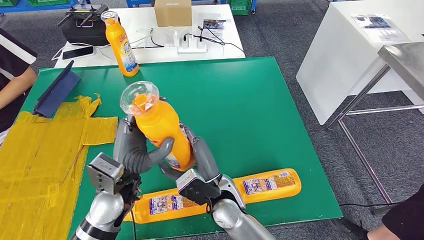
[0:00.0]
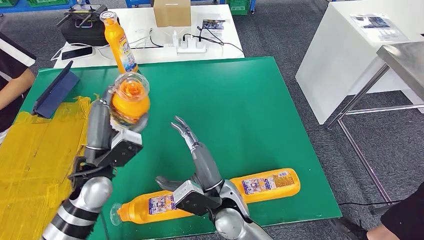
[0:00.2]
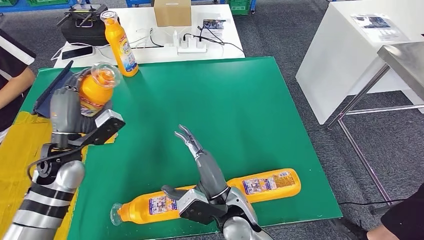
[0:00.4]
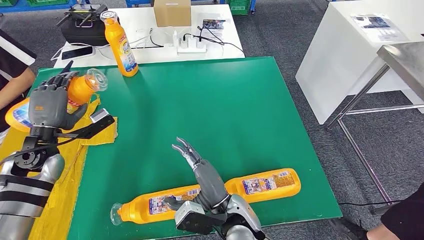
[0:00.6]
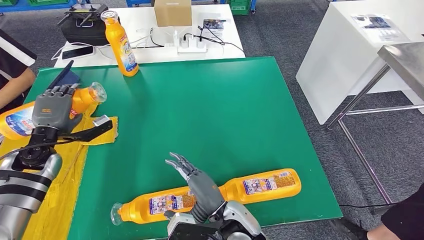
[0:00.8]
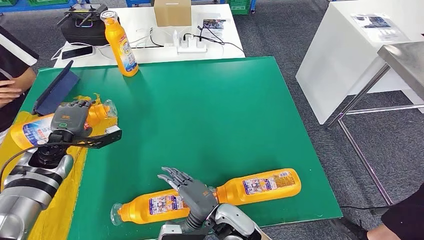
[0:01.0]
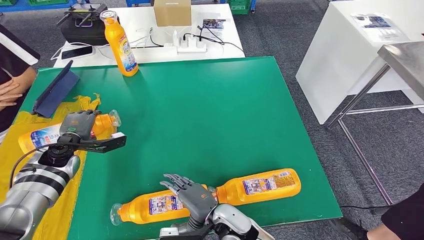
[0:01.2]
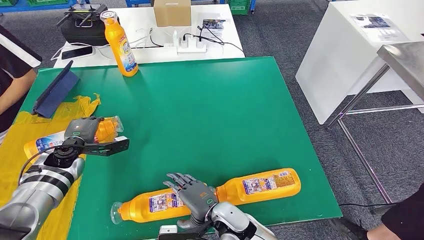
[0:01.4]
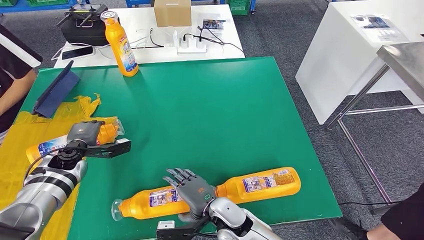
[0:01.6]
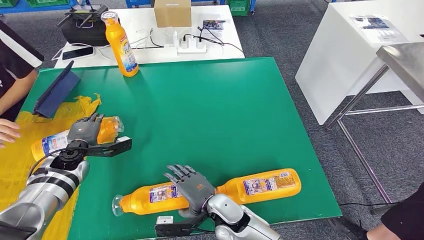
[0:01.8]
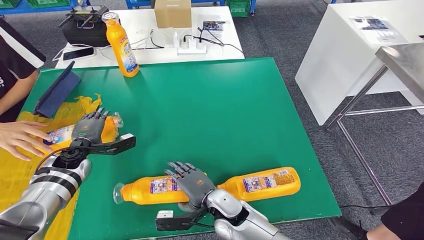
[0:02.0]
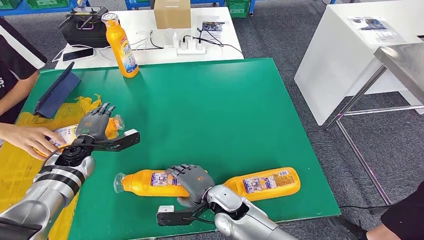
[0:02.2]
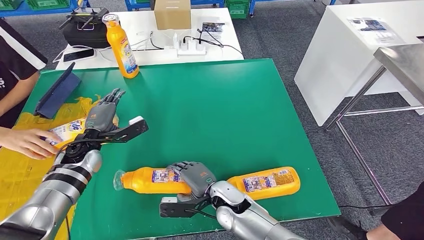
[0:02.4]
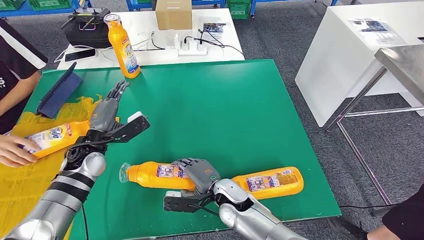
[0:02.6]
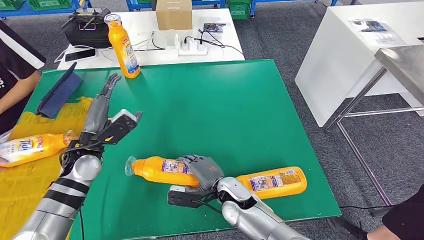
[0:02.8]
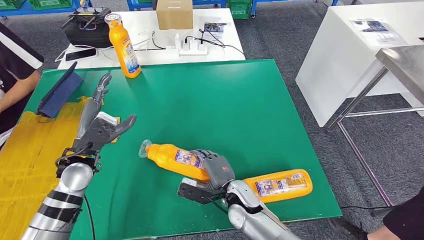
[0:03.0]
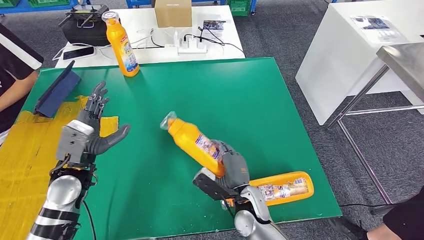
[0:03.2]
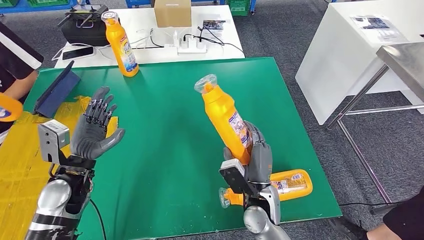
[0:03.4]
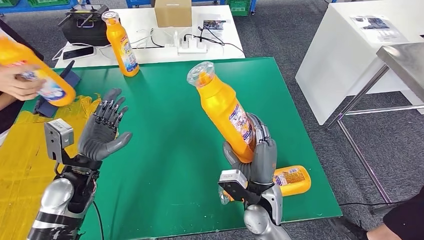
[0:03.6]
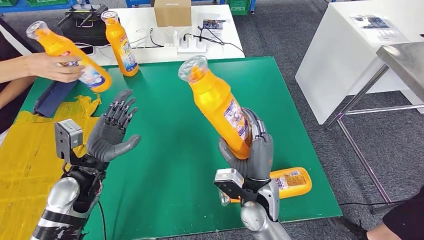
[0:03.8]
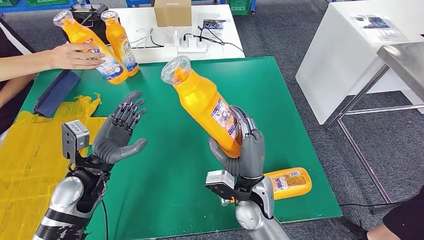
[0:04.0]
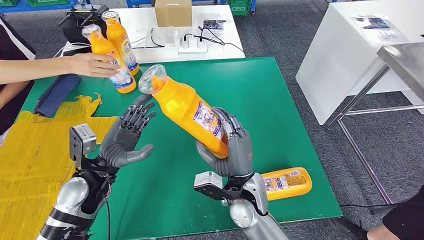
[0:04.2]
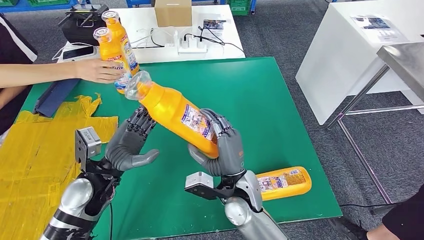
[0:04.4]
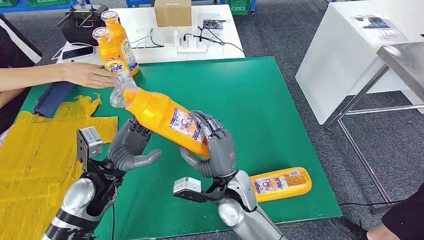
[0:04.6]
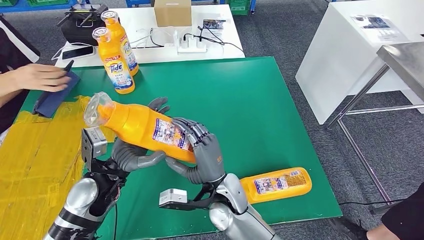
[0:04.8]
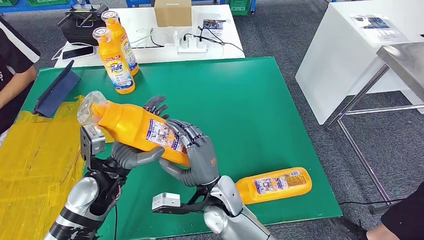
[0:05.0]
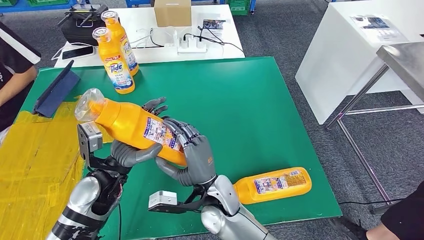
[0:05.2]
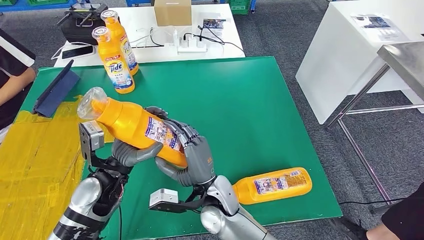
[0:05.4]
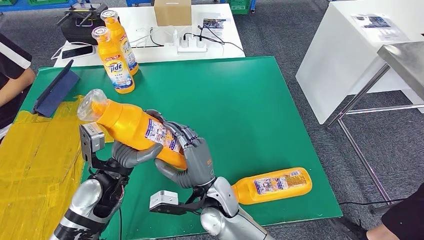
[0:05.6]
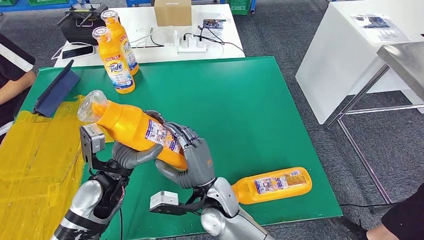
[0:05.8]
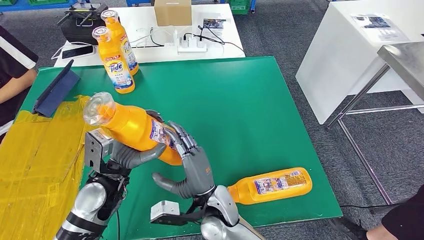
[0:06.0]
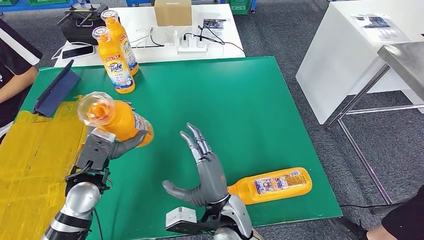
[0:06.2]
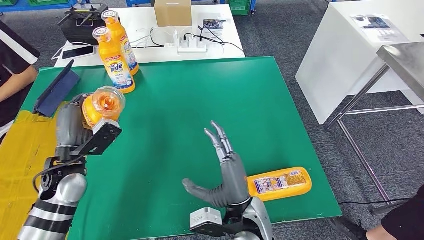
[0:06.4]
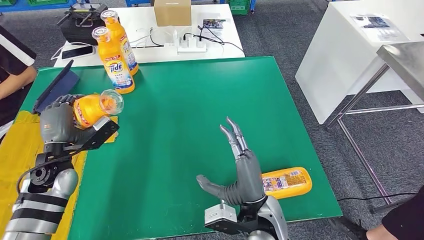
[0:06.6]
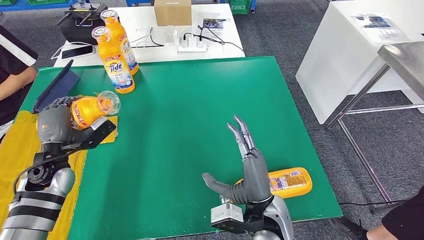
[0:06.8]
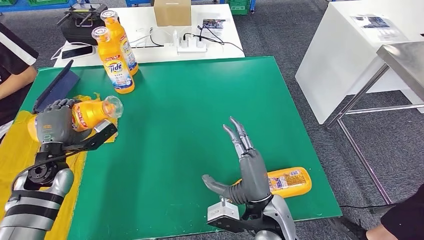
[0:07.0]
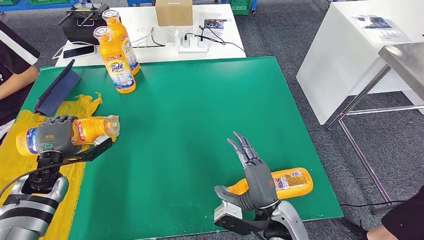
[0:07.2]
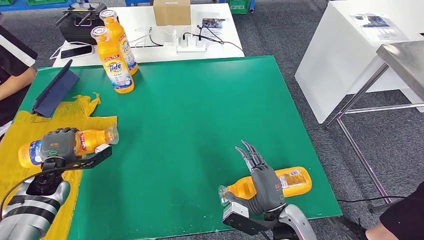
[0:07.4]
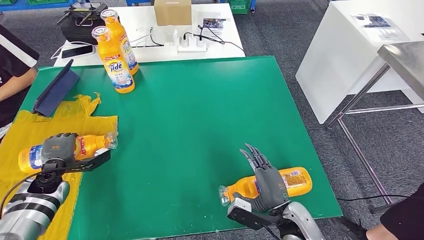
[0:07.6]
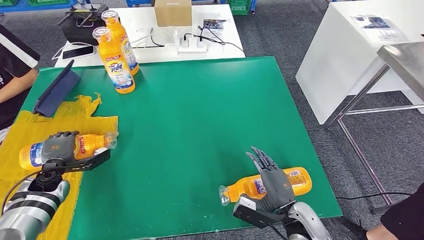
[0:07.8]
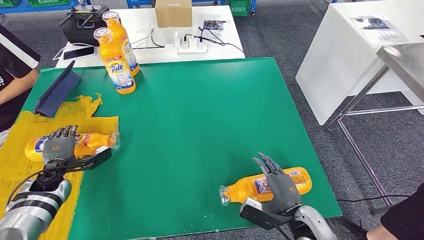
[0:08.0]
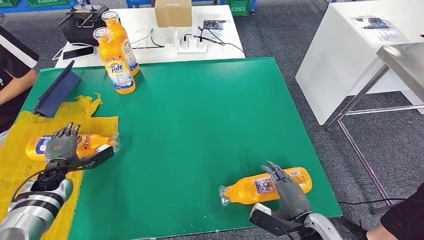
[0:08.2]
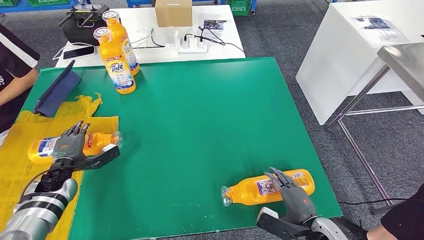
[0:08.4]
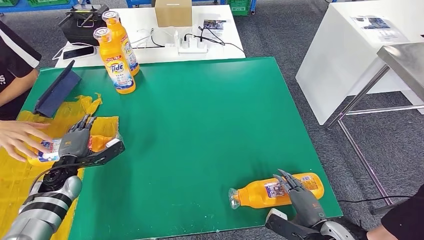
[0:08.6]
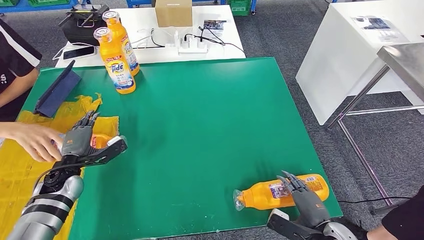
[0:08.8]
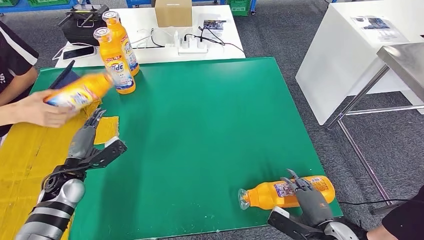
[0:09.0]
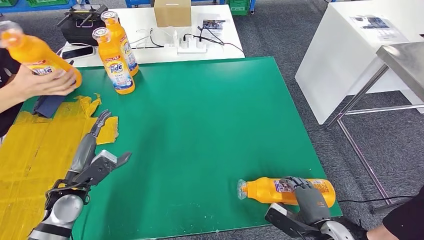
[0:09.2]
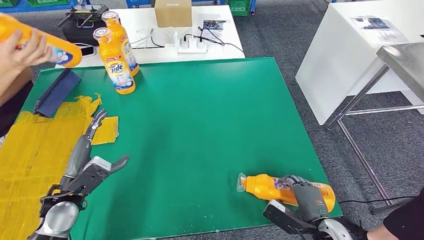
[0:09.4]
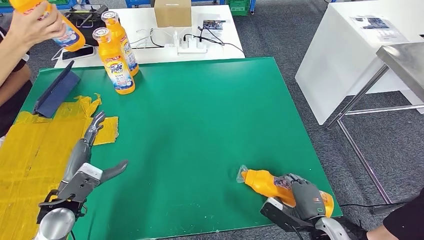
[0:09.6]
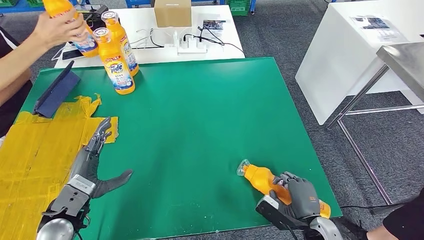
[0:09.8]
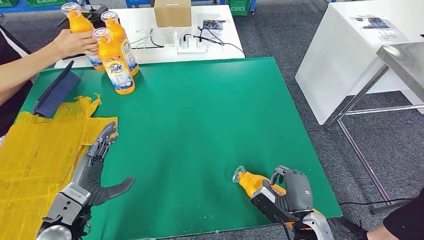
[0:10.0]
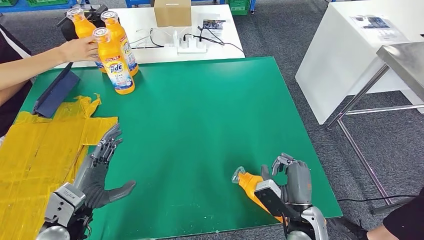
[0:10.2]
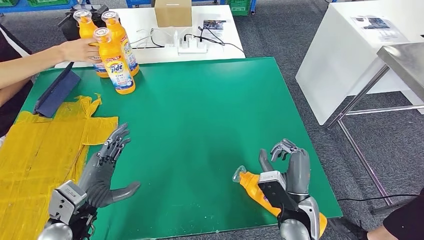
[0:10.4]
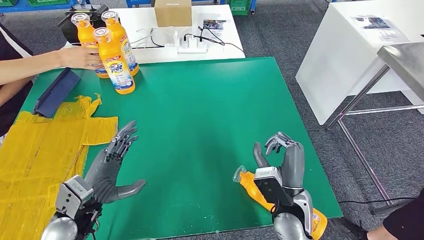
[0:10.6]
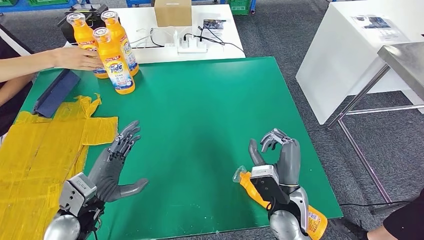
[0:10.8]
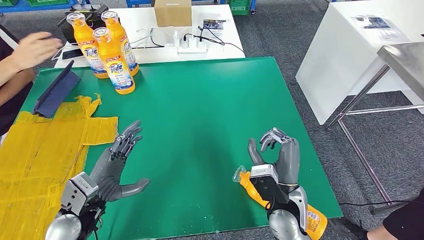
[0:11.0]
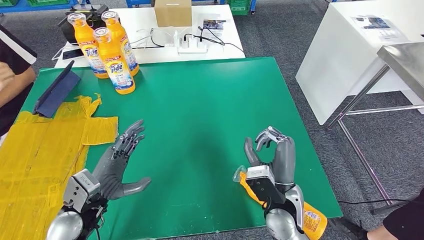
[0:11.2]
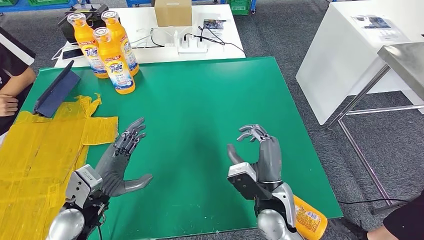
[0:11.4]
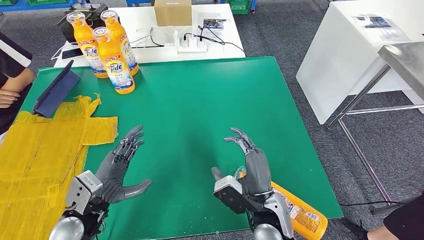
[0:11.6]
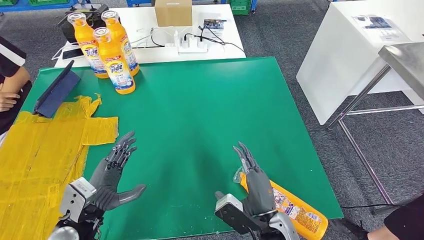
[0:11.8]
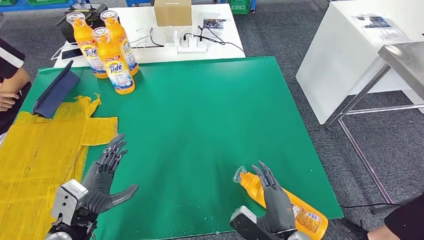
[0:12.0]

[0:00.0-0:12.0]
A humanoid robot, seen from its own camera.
Step, 0:00.0 to 0:01.6: Flip the fast-moving consumer goods bottle to the front side.
Step, 0:01.8 to 0:04.8: Pick up the fast-moving consumer goods bottle from the table.
Step, 0:05.2 to 0:08.6: Flip the fast-moving consumer goods bottle to the front side.
0:00.0 to 0:01.6: The right hand is displaced downward by approximately 5 cm. Meanwhile the left hand heads to the left, forward and downward, covering about 25 cm.
0:10.4 to 0:12.0: The right hand shifts about 10 cm backward.

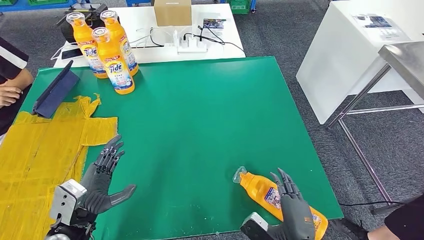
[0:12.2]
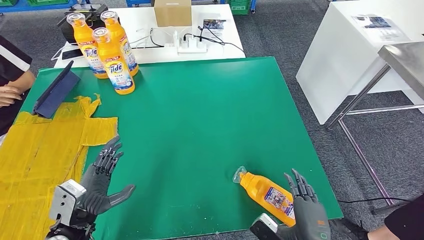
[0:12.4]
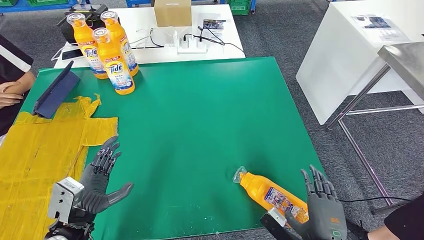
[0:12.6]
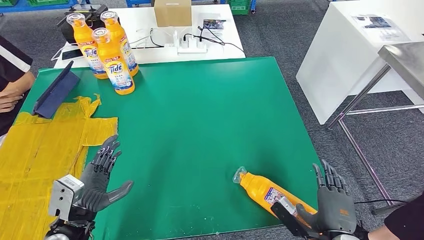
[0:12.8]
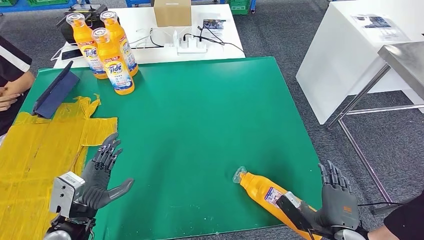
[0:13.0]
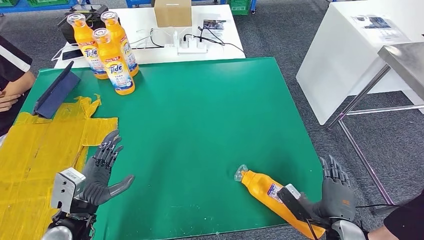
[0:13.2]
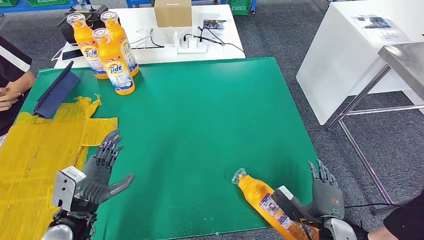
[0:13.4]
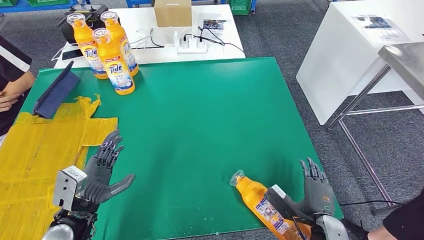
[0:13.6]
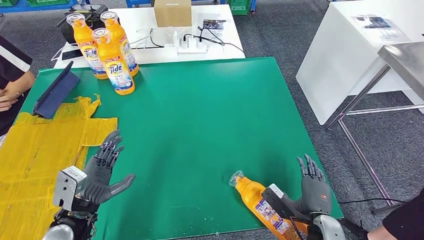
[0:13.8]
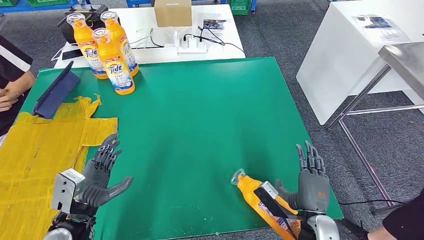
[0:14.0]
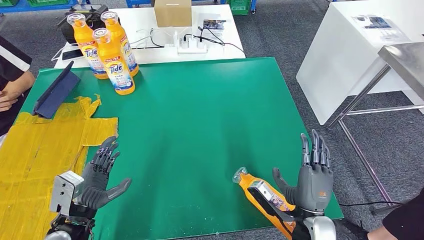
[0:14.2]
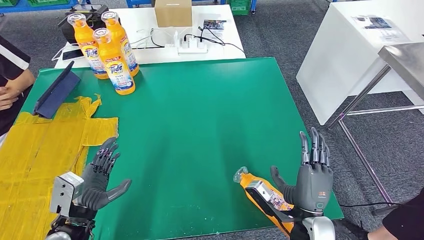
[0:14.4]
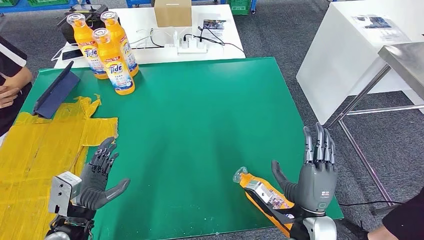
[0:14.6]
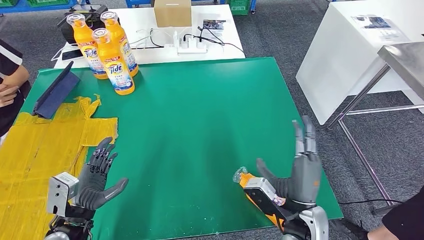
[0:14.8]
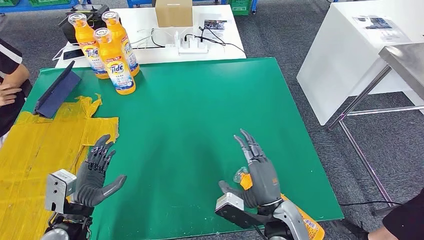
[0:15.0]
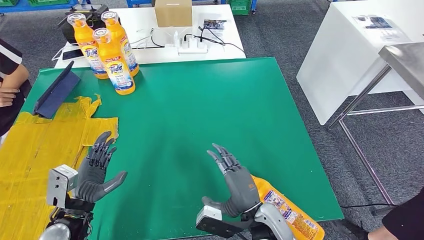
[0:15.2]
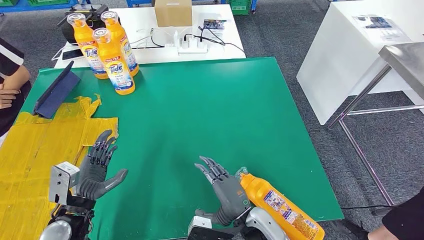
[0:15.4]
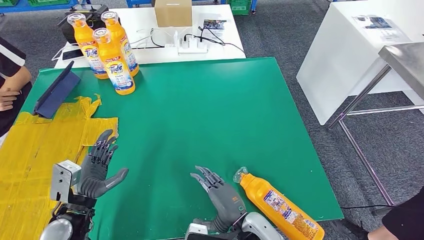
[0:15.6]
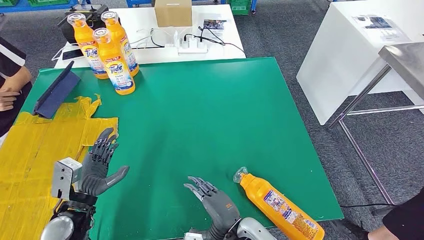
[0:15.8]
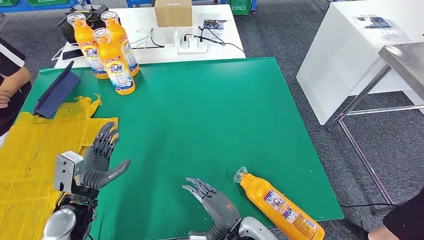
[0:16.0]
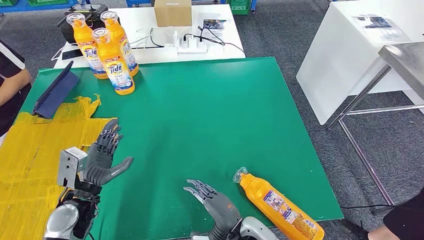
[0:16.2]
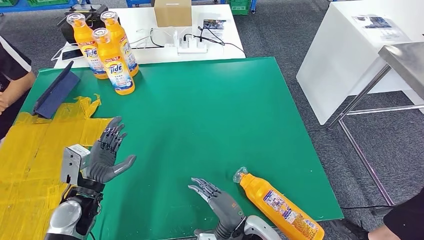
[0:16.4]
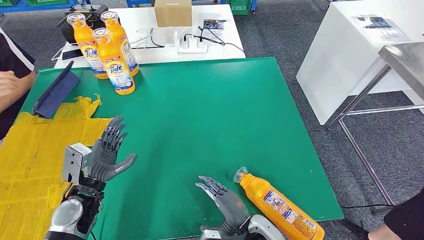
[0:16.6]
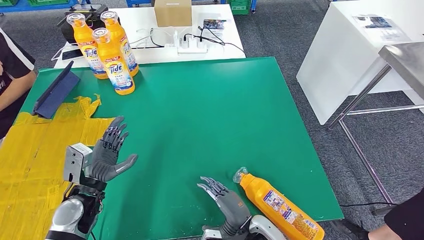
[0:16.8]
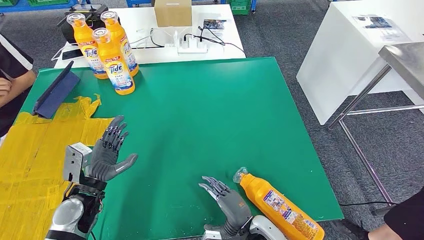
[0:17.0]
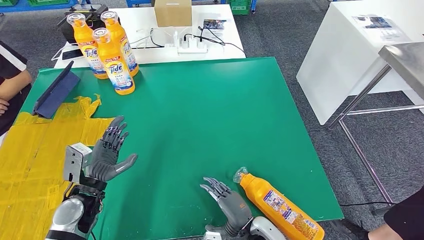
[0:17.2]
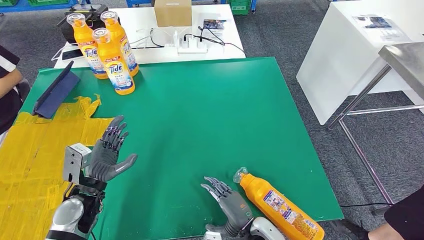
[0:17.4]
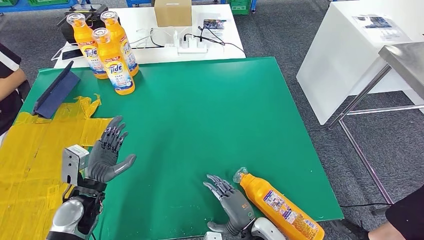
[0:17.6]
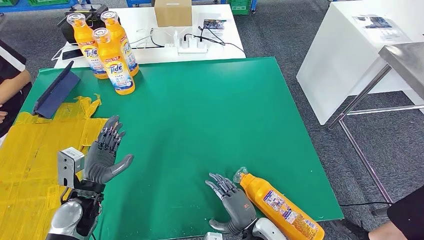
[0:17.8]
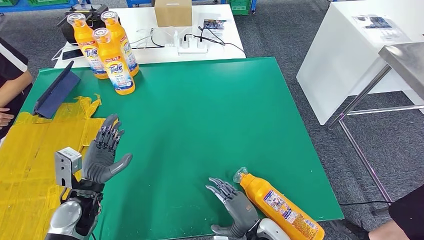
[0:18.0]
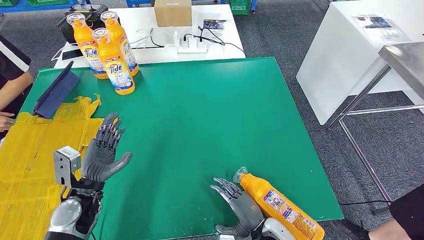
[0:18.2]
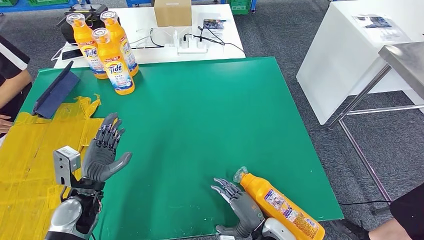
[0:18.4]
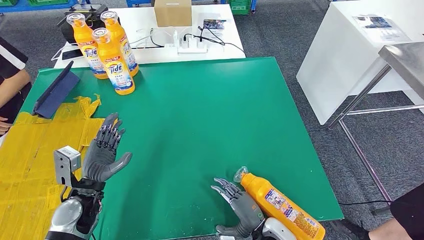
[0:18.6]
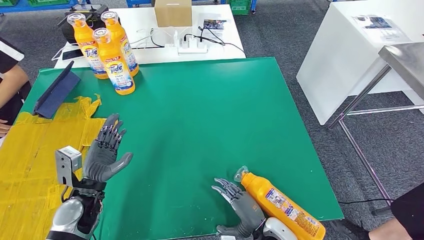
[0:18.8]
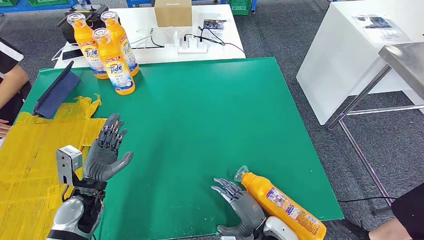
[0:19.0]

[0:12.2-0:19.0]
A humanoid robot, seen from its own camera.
0:12.2 to 0:13.6: The right hand is displaced to the right and downward by roughly 10 cm.
0:13.6 to 0:15.0: The right hand travels to the left and upward by about 15 cm.
0:15.0 to 0:16.2: The right hand goes some 10 cm downward. The left hand changes place by roughly 5 cm.
0:16.2 to 0:17.6: The right hand moves about 5 cm.
0:17.6 to 0:19.0: There are only small adjustments of the hands.
